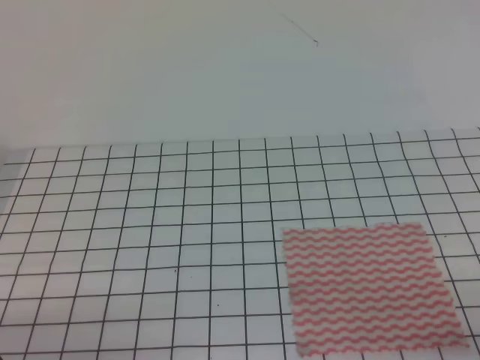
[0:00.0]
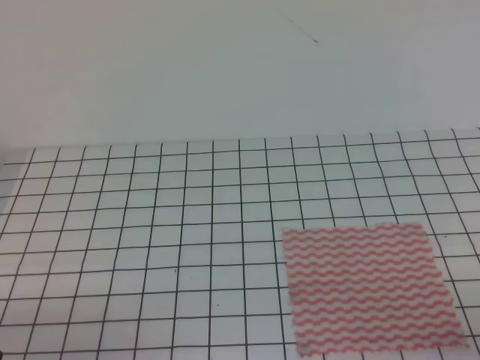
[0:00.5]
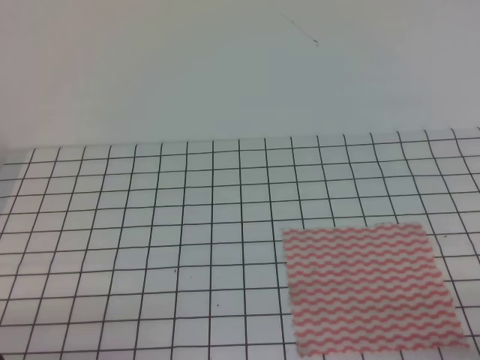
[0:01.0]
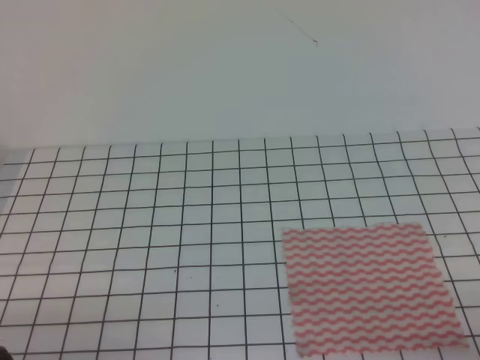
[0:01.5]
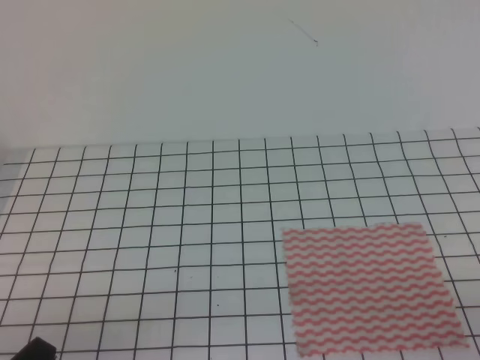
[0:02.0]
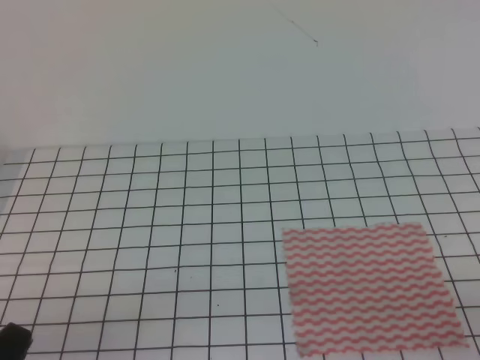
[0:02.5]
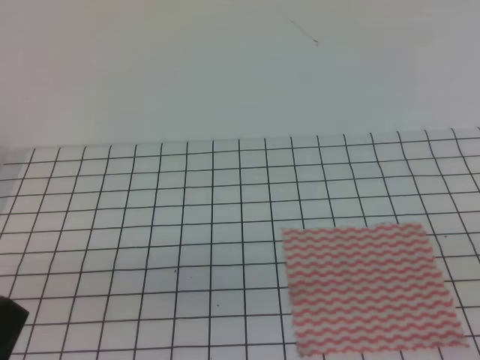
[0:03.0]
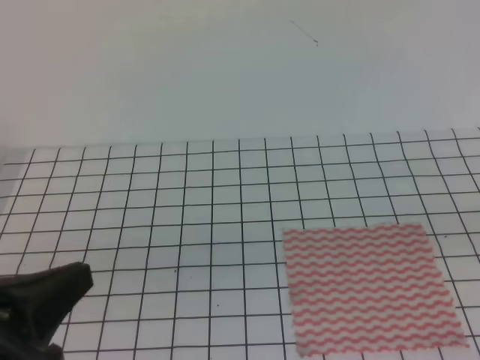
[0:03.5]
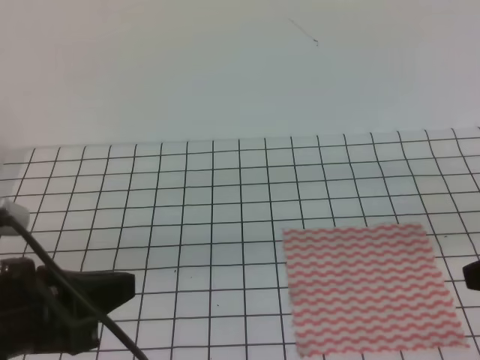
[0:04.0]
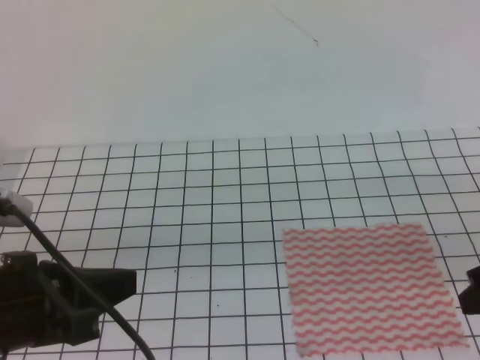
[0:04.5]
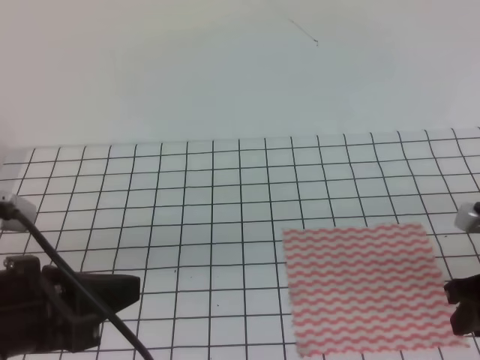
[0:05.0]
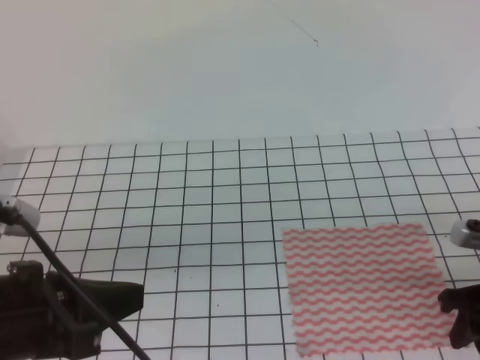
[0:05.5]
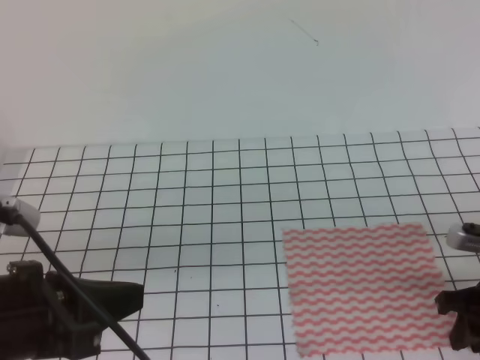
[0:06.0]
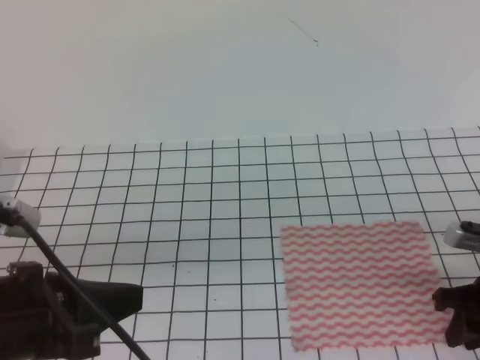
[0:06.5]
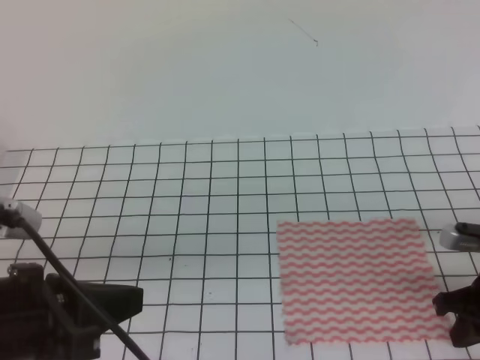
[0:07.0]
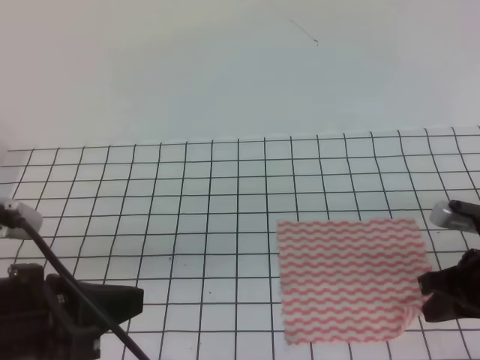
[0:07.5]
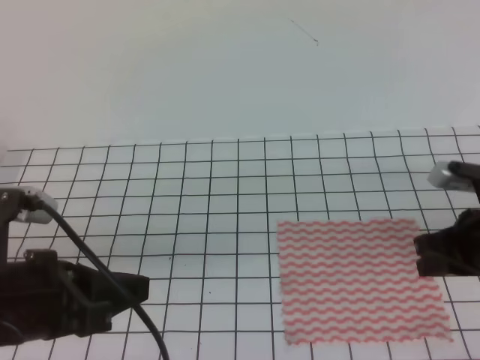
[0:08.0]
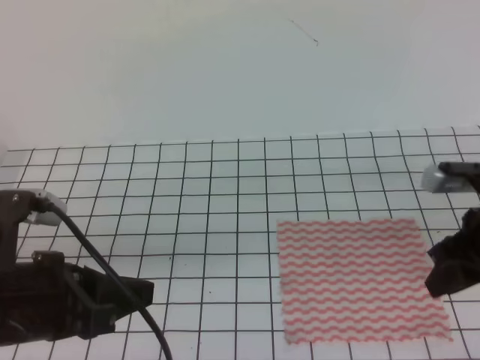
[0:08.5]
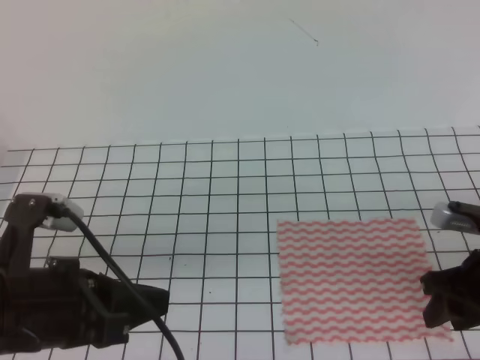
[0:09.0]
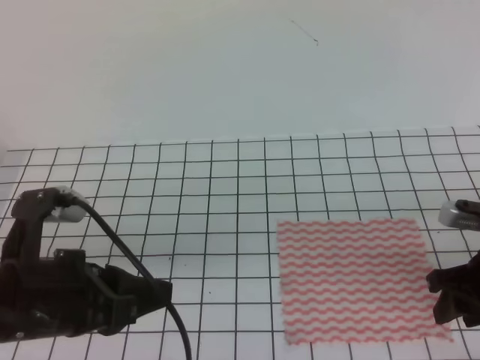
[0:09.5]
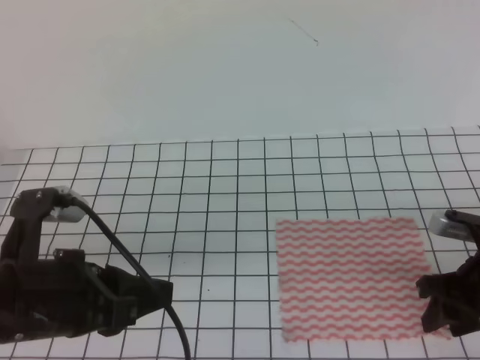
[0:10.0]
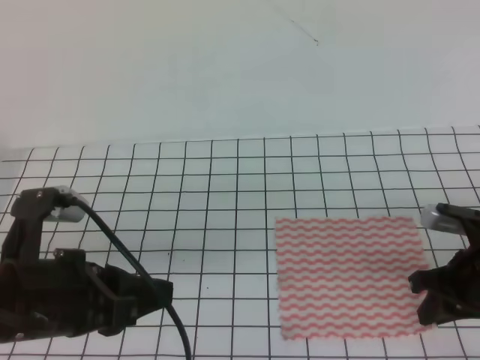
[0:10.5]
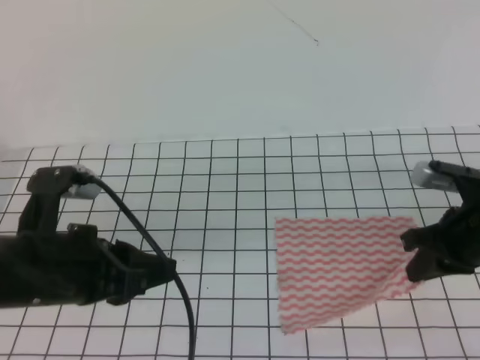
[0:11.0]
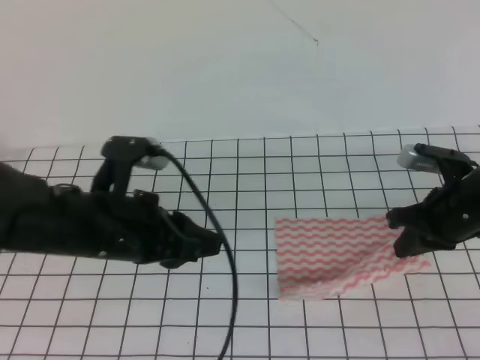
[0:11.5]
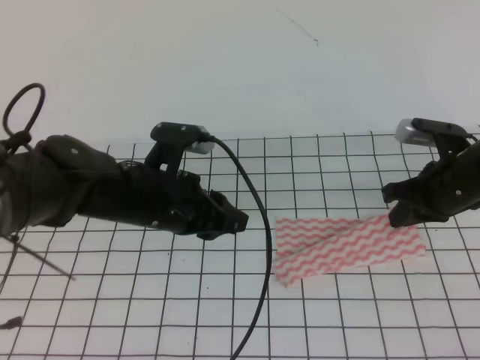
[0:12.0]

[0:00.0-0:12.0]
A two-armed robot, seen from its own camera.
0:02.0 to 0:04.0: The right gripper travels forward and upward by roughly 15 cm, and opens up. The left gripper is displaced upward and forward by roughly 15 cm.
0:04.0 to 0:06.0: The right gripper moves downward and forward, about 15 cm.
0:06.0 to 0:08.0: The right gripper shifts by some 5 cm, and closes its fingers. The left gripper opens up.
0:08.0 to 0:10.0: The left gripper opens up. The right gripper opens up.
0:10.0 to 0:12.0: The left gripper travels forward and to the right by some 15 cm, while the right gripper travels forward by some 10 cm, and closes its fingers.

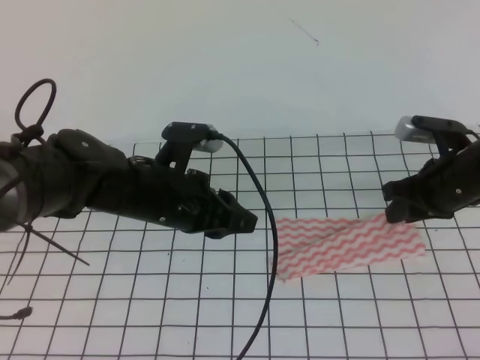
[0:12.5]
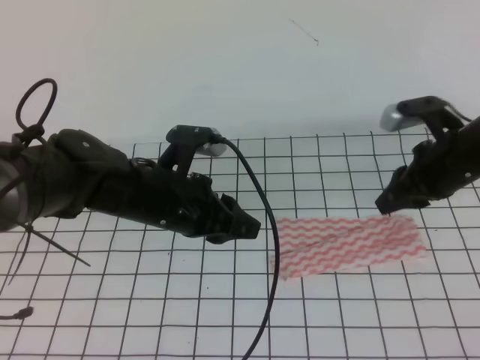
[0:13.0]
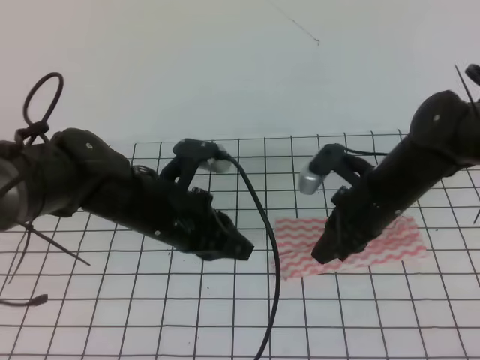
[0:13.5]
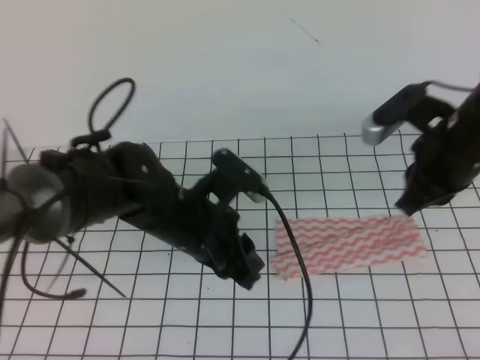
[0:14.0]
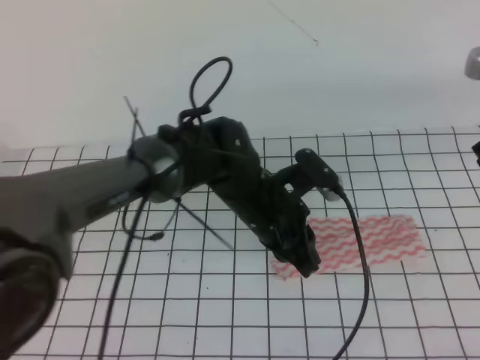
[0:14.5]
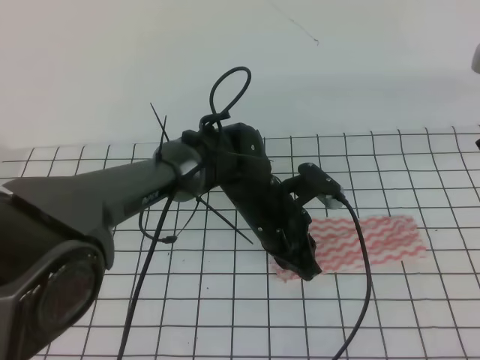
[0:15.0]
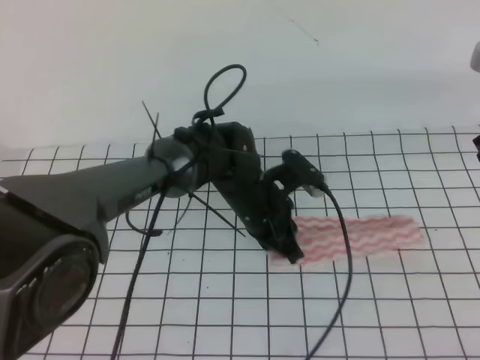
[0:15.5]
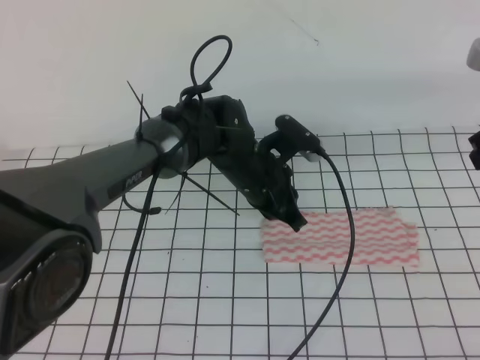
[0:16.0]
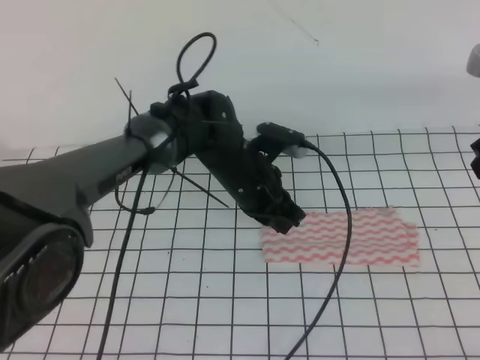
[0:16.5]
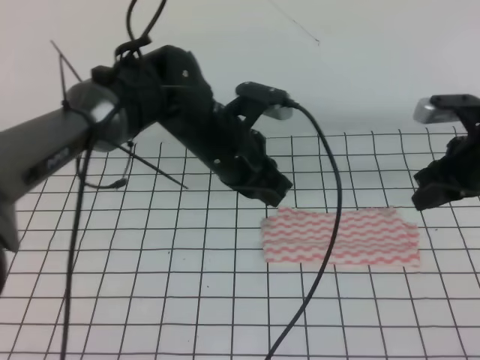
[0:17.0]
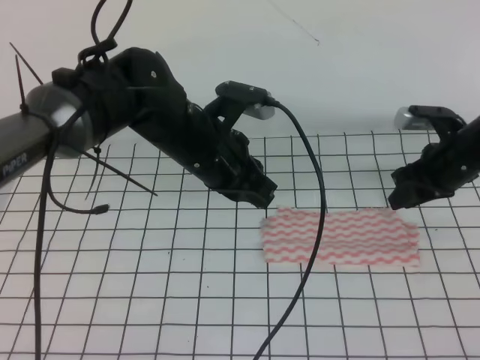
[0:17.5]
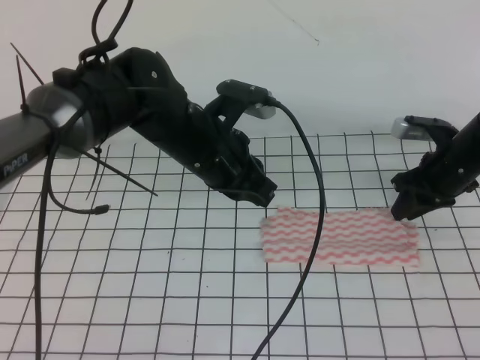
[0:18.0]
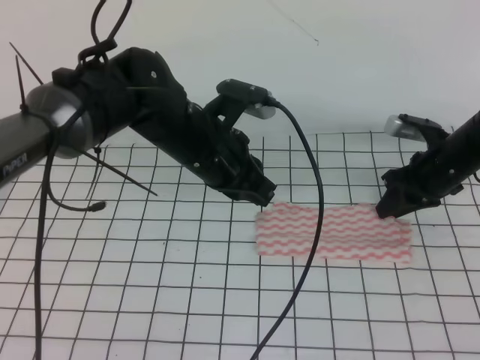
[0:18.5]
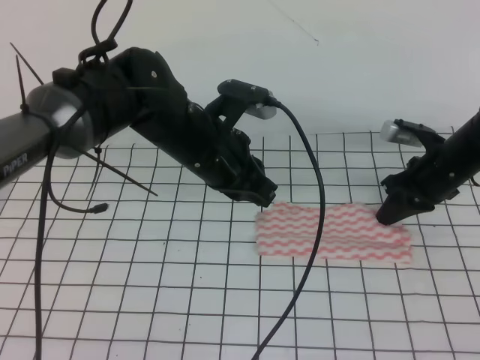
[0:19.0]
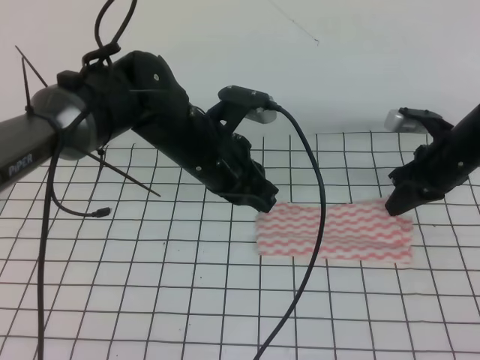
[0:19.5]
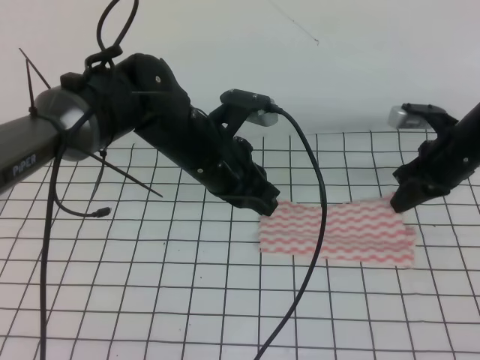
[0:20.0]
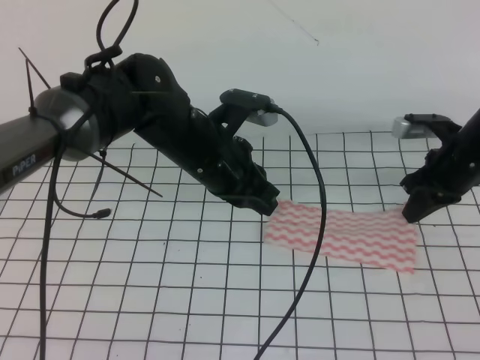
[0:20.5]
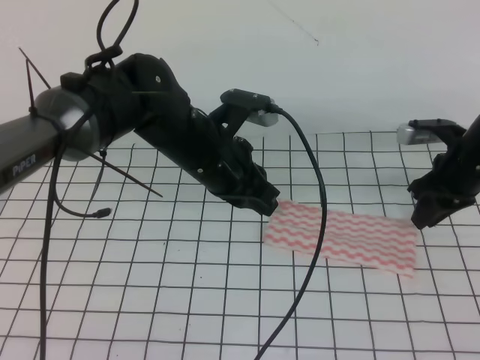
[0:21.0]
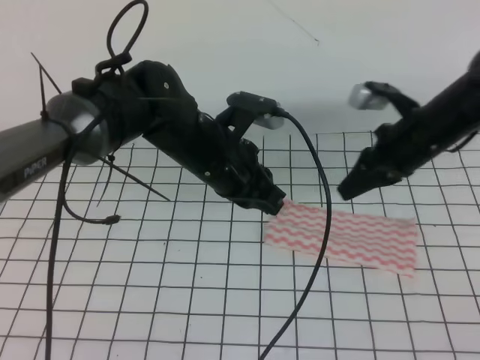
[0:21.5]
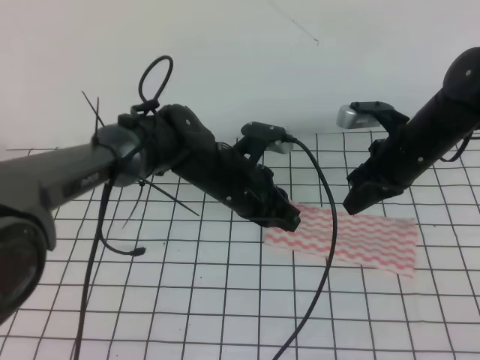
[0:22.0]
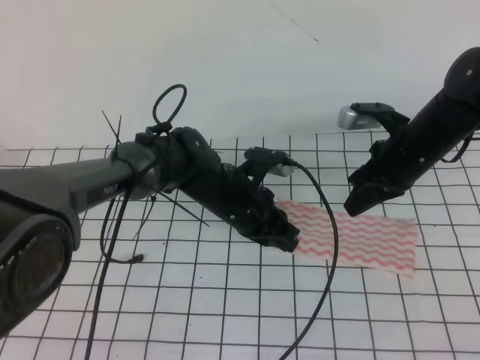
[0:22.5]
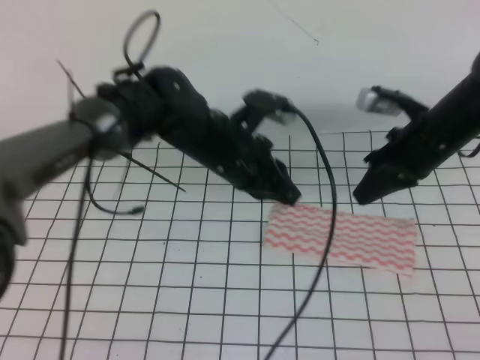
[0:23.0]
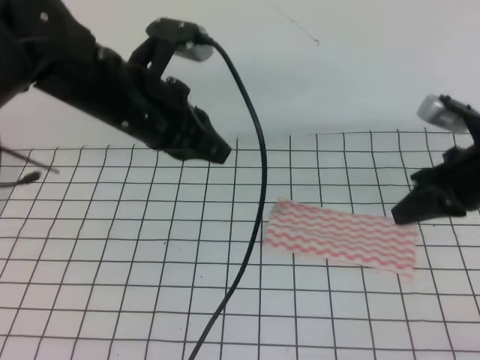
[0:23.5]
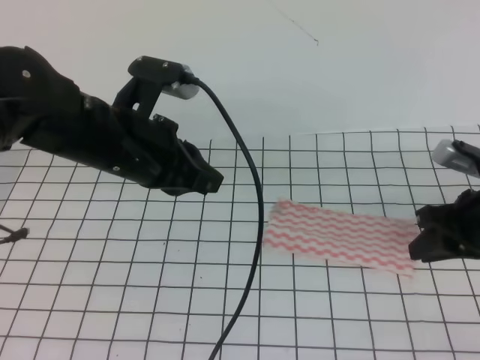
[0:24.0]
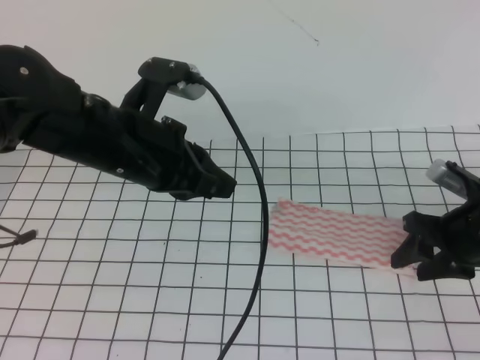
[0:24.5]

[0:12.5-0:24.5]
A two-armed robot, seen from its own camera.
0:12.5 to 0:14.5: The right gripper goes roughly 15 cm upward, and closes. Meanwhile the left gripper shifts some 10 cm to the right, and closes its fingers.
0:14.5 to 0:16.5: The left gripper moves forward, roughly 5 cm.
0:16.5 to 0:18.5: The left gripper moves upward and to the left, about 10 cm. Meanwhile the right gripper is displaced downward and forward by about 20 cm, and opens.
0:18.5 to 0:20.5: The right gripper closes its fingers.
0:20.5 to 0:22.5: The left gripper shifts about 10 cm downward; the right gripper travels to the left by roughly 5 cm, and opens and closes again.
0:22.5 to 0:24.5: The left gripper is displaced upward, to the left and backward by about 20 cm. Meanwhile the right gripper moves backward and to the right, roughly 10 cm, and opens its fingers.

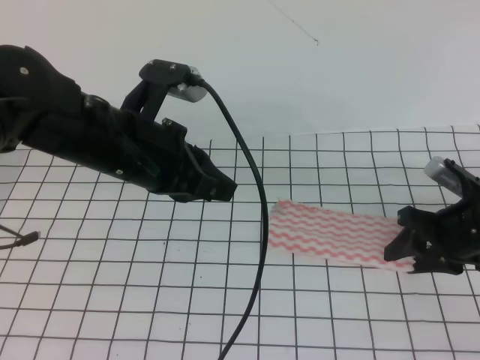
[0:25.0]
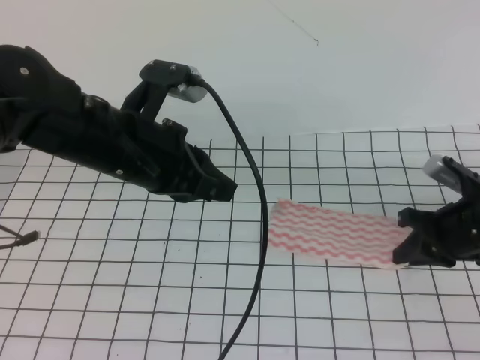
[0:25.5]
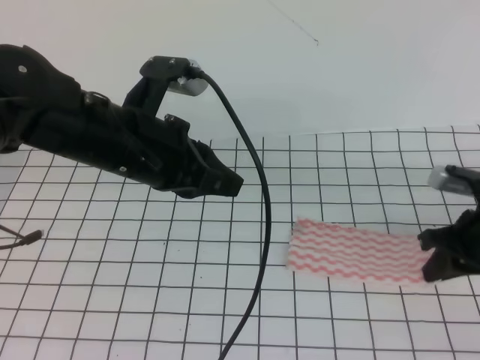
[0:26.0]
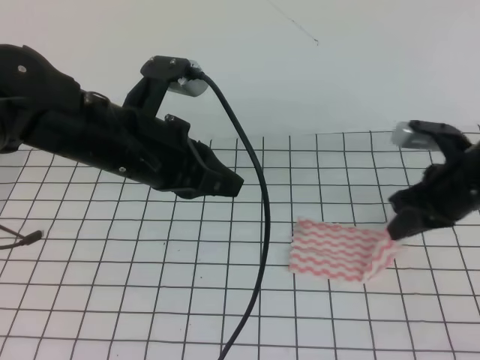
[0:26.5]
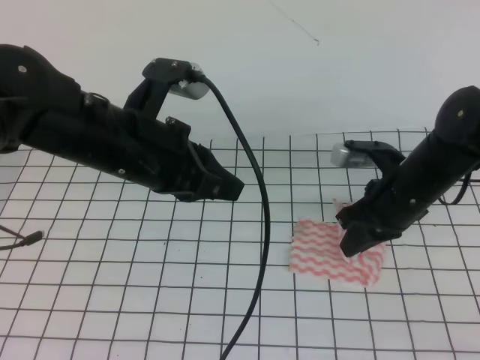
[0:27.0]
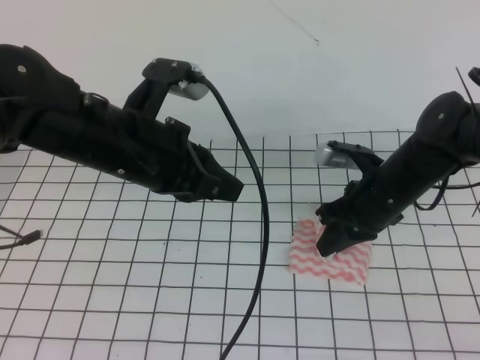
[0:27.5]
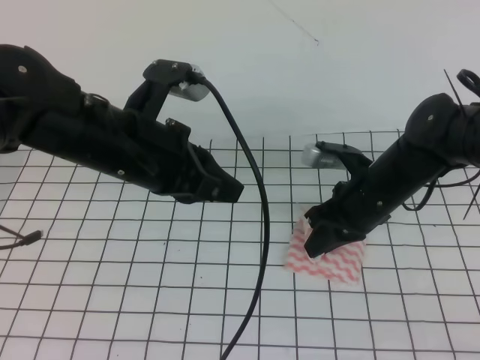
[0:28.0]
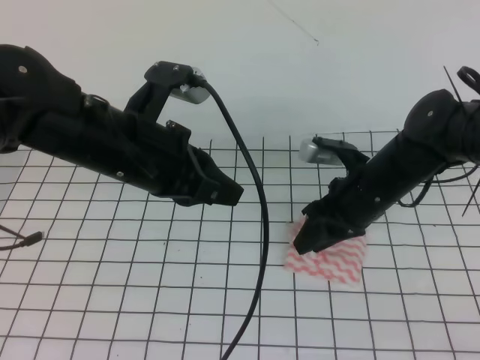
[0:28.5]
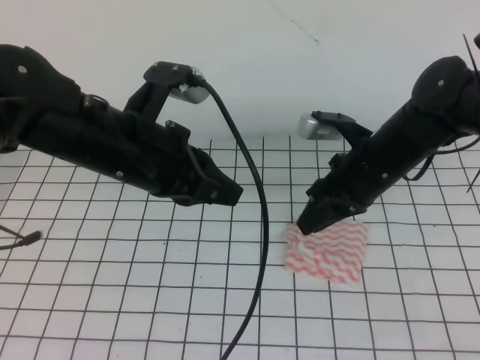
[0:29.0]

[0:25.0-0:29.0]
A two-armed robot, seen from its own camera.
0:25.0 to 0:27.0: The right gripper is displaced to the left by approximately 10 cm, and closes its fingers.
0:27.0 to 0:29.0: The right gripper moves some 5 cm, and opens.
